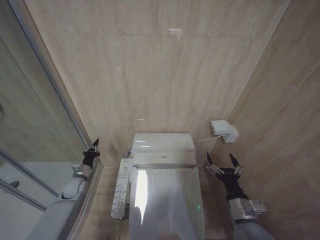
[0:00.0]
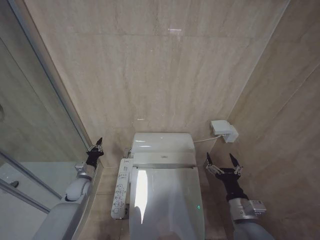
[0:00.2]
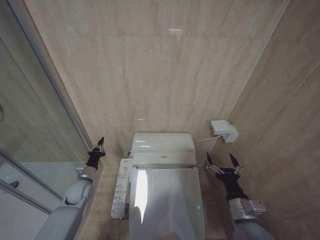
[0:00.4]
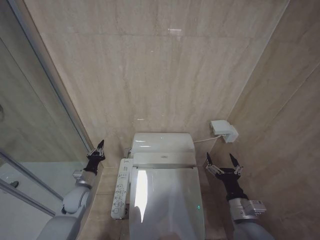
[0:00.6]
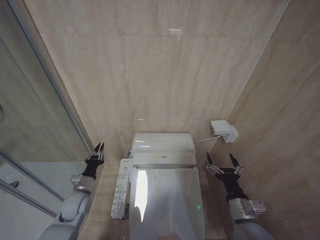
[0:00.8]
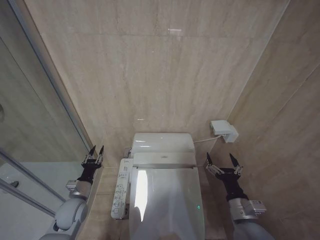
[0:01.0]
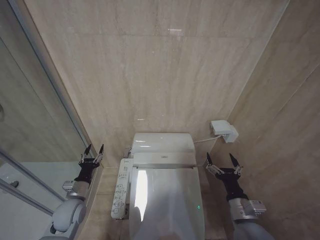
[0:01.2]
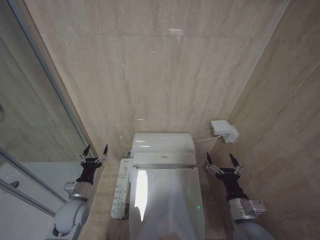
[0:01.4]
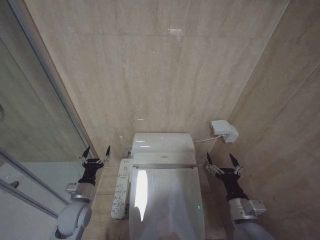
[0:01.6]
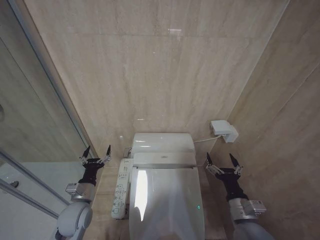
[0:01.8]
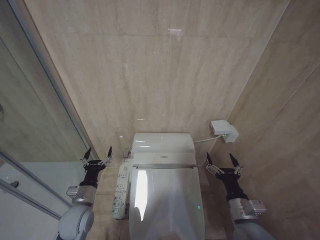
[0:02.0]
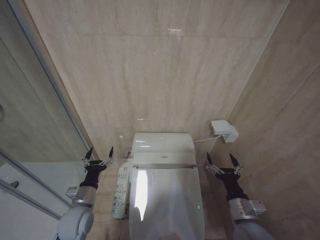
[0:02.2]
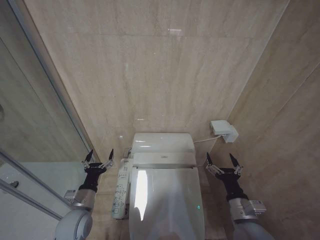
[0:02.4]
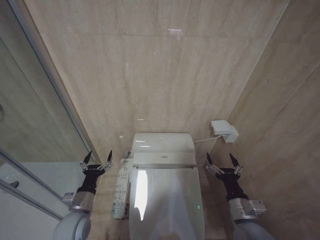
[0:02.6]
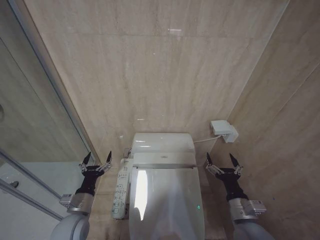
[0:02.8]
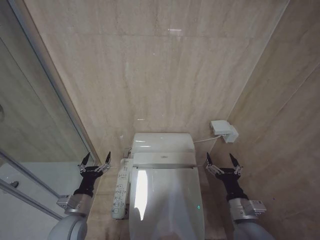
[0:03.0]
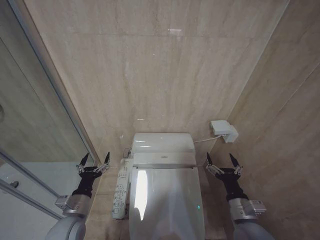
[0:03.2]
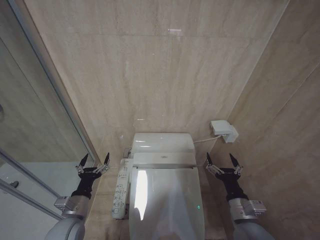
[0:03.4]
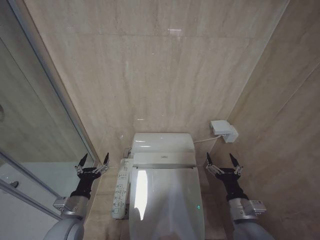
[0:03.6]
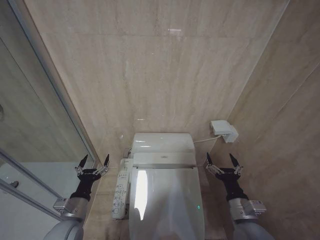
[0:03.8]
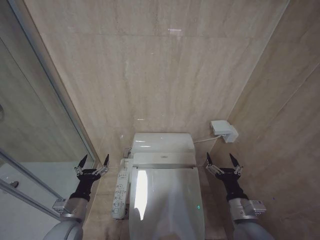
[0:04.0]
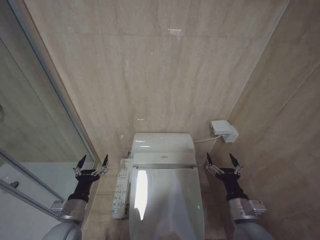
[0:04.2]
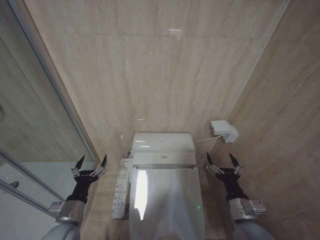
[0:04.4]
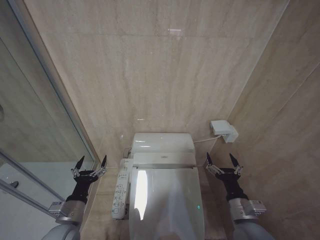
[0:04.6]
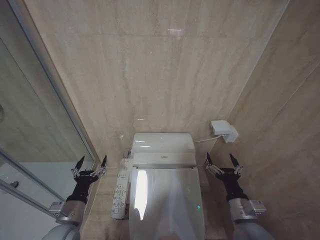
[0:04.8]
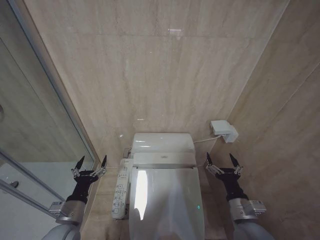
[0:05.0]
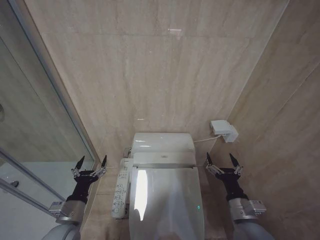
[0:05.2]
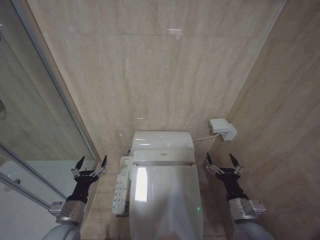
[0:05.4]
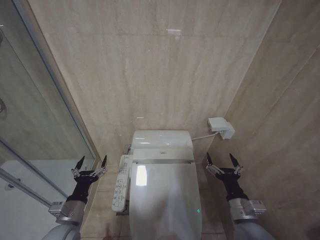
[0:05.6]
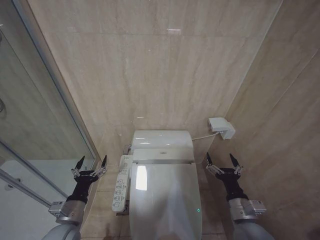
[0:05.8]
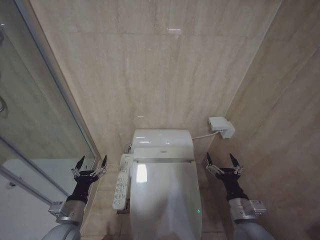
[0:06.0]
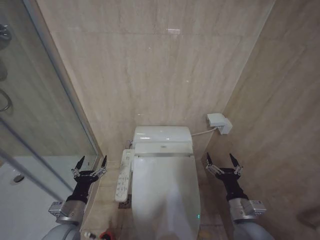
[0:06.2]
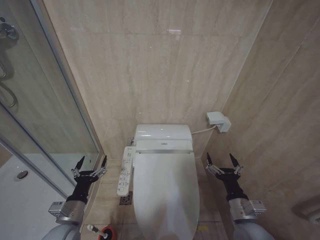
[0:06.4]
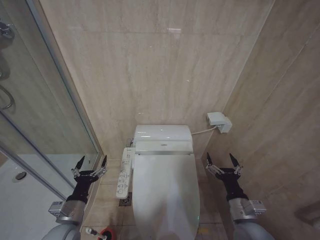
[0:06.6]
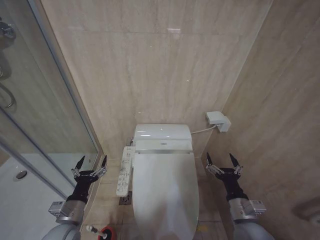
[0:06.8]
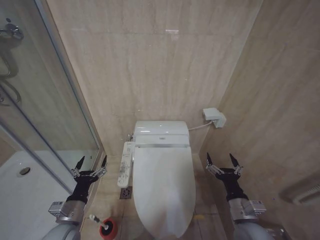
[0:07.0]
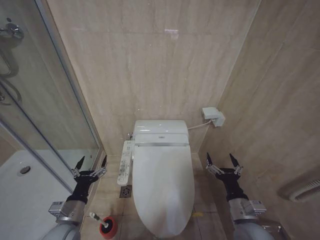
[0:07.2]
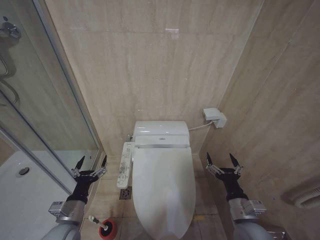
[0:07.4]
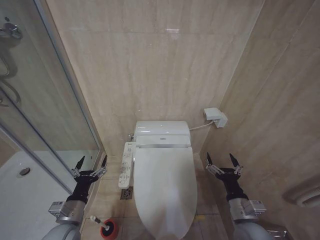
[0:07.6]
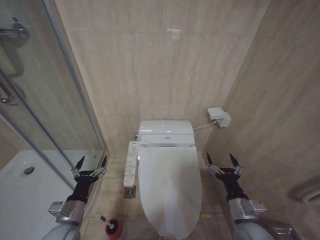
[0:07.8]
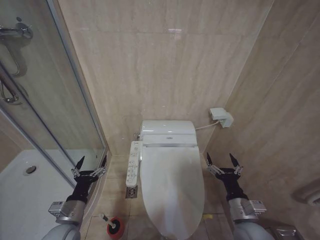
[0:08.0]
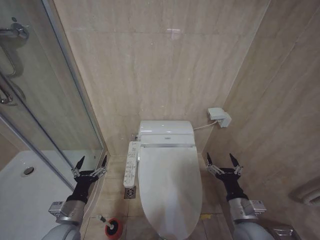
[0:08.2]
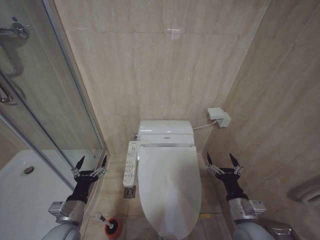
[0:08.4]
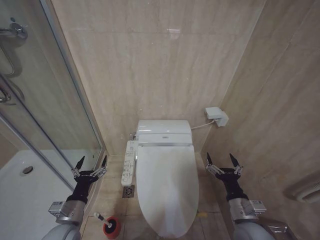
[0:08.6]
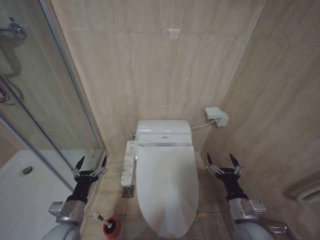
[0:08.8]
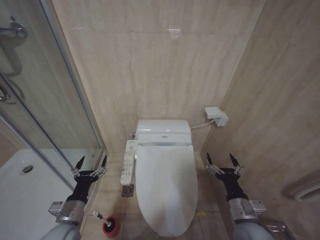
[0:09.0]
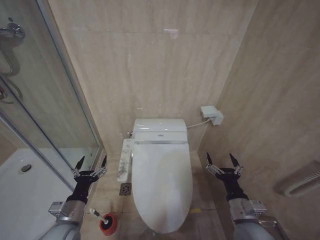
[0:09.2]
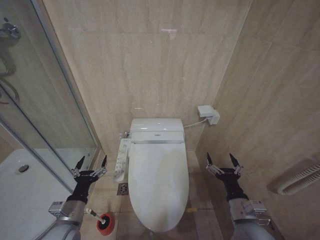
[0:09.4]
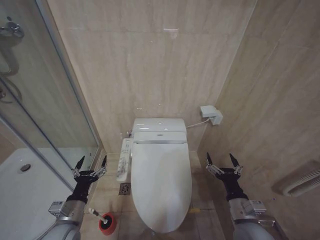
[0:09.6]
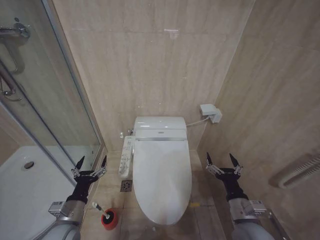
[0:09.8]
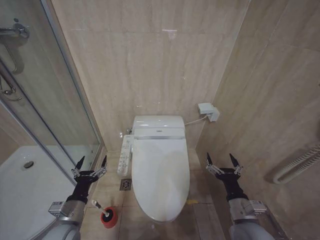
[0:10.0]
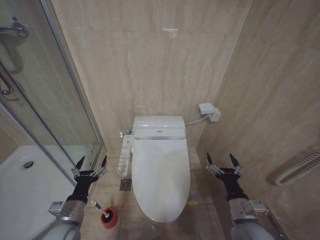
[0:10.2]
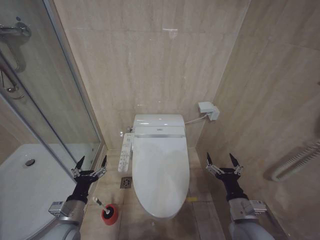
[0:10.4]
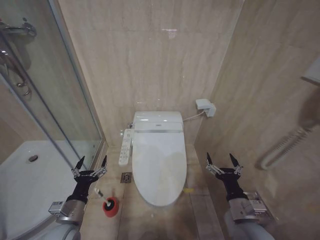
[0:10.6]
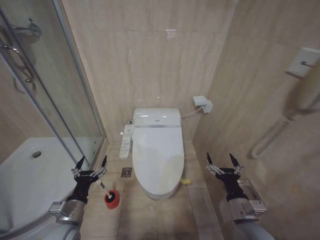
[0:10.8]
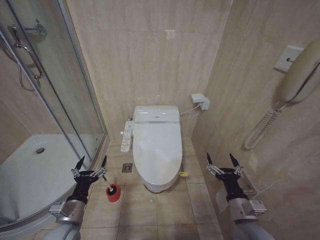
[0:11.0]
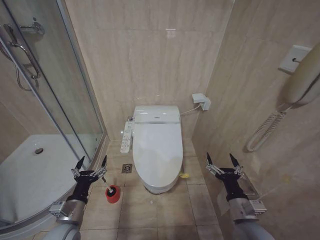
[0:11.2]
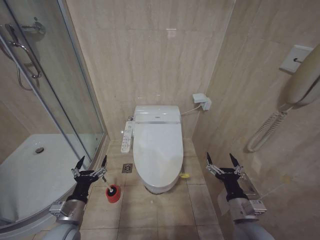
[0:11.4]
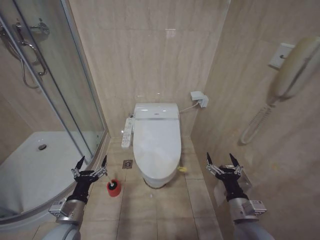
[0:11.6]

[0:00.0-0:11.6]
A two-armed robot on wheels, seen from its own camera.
Task of the whole recording: Open the toilet lid, clean the toilet bowl with a toilet brush, close the toilet lid, and flush.
0:00.0 to 0:01.4: The left gripper heads backward, to the right and upward, covering approximately 15 cm, and opens up.
0:01.4 to 0:02.8: The left gripper is displaced backward by approximately 5 cm, and opens up.
0:02.8 to 0:04.4: The grippers make only small movements.
0:04.4 to 0:11.6: The two grippers keep their place.

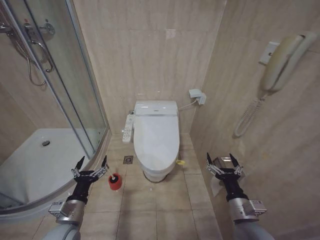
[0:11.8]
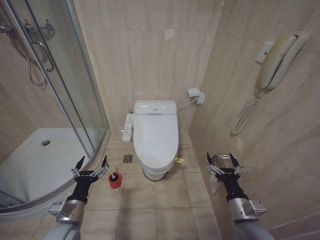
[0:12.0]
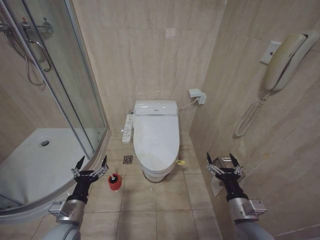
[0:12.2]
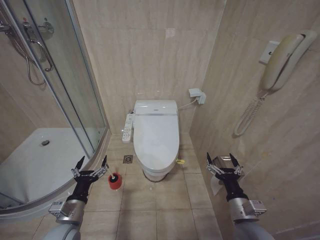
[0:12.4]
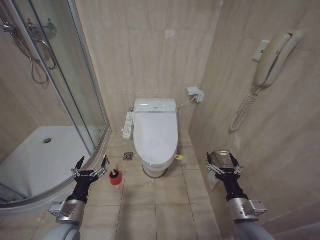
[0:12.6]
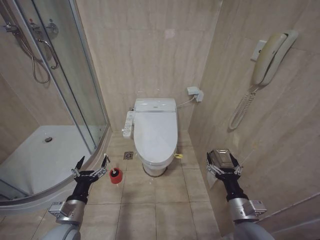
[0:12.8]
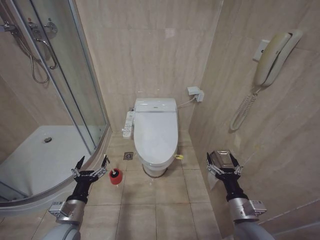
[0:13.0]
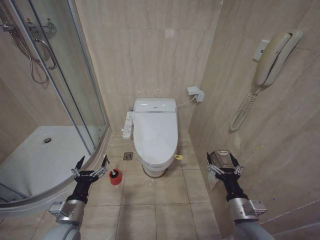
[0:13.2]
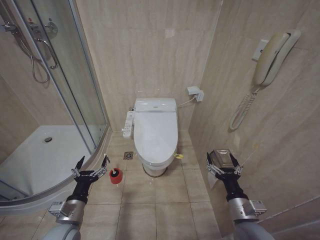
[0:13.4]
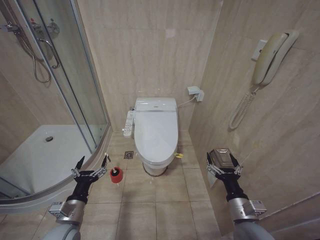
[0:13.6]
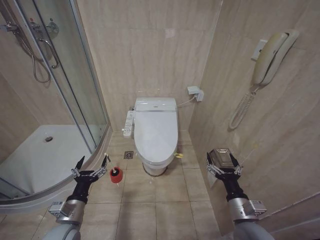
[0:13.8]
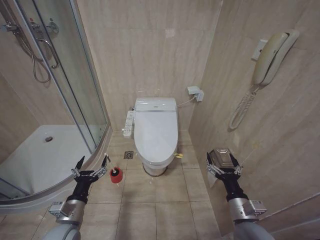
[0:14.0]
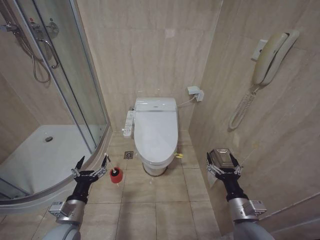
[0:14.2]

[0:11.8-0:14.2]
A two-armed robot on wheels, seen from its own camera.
Task of the whole recording: Open the toilet lid, clean the toilet bowl with a toilet brush, close the toilet lid, and flush.
0:11.8 to 0:14.2: Both grippers stay about where they are.
